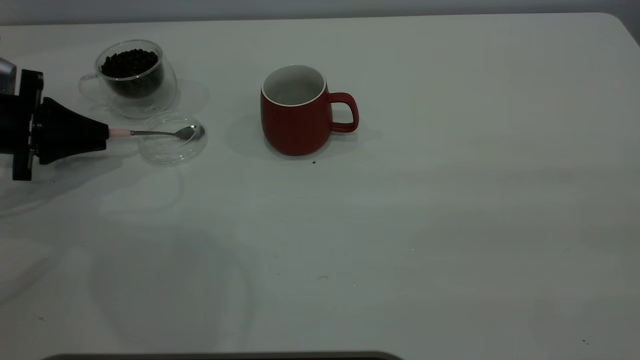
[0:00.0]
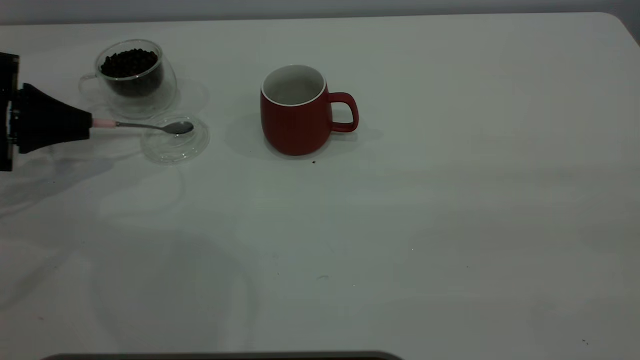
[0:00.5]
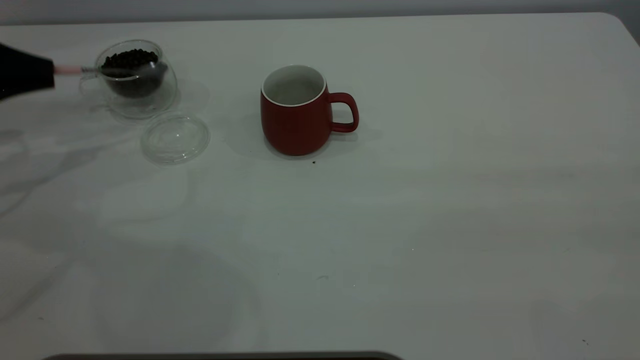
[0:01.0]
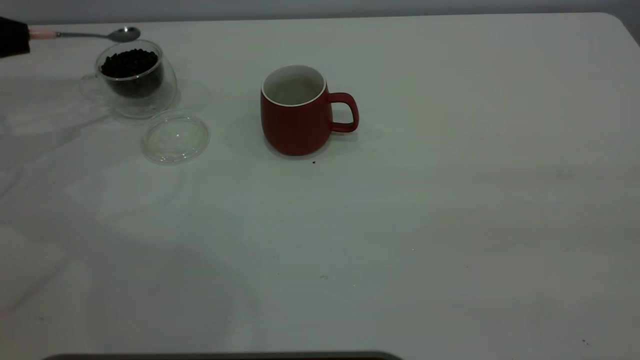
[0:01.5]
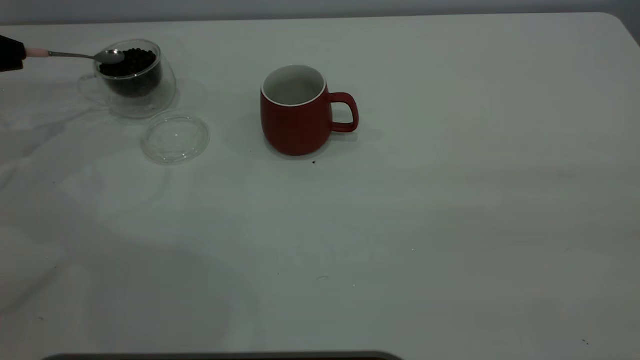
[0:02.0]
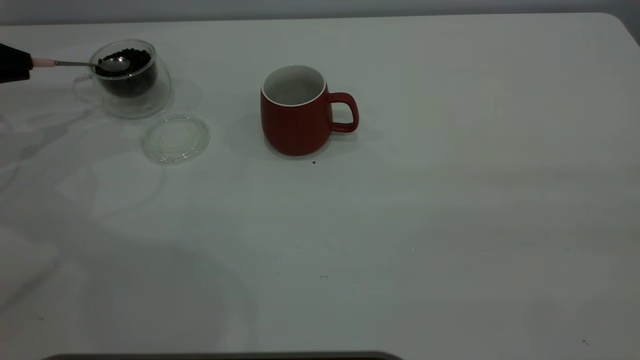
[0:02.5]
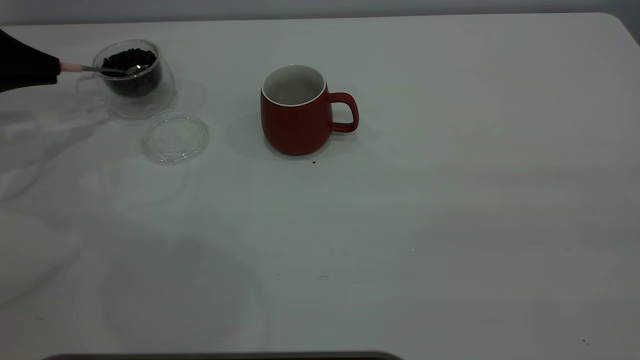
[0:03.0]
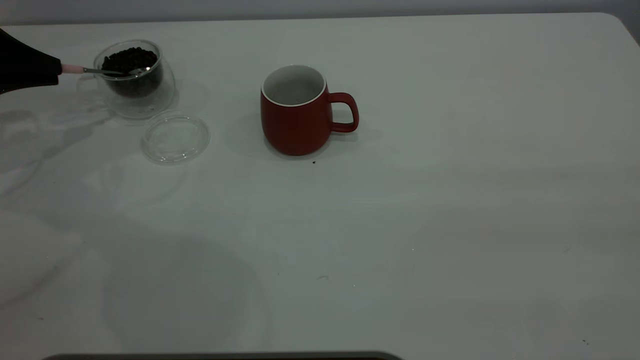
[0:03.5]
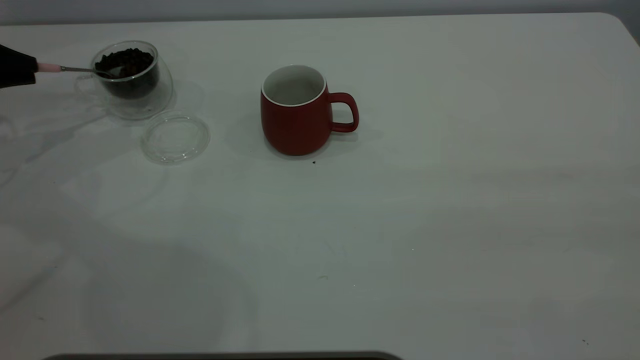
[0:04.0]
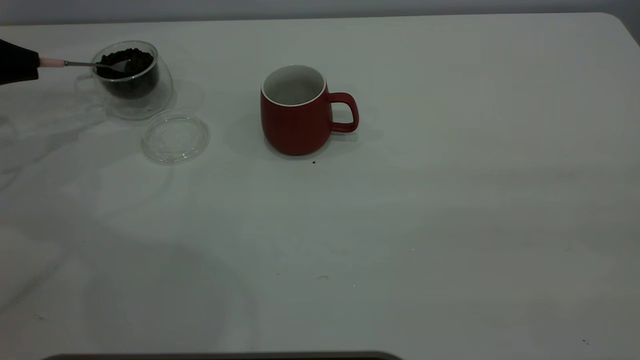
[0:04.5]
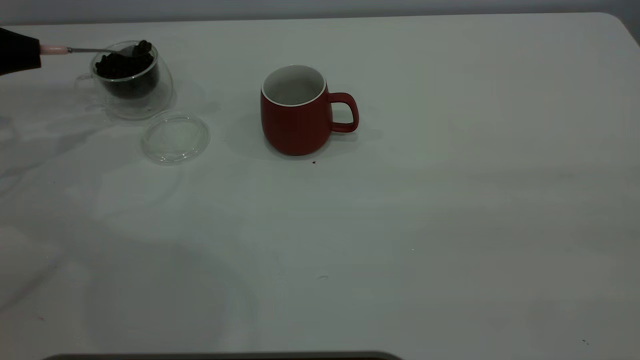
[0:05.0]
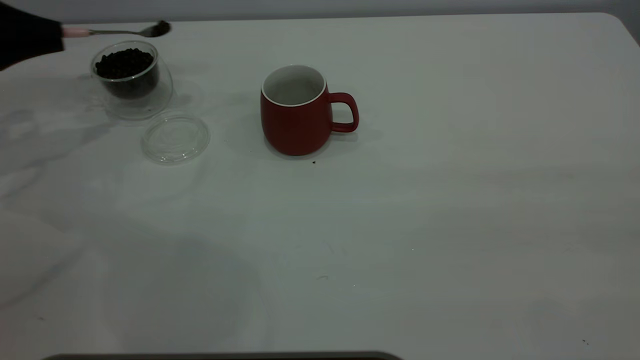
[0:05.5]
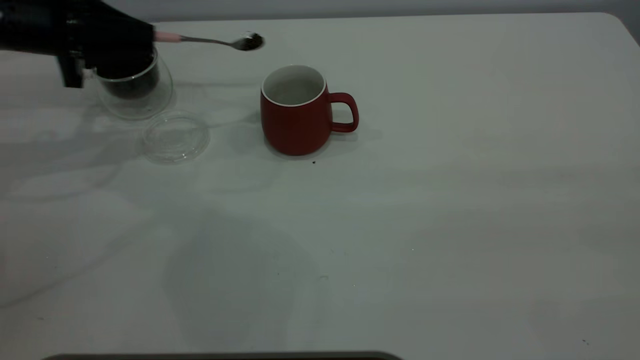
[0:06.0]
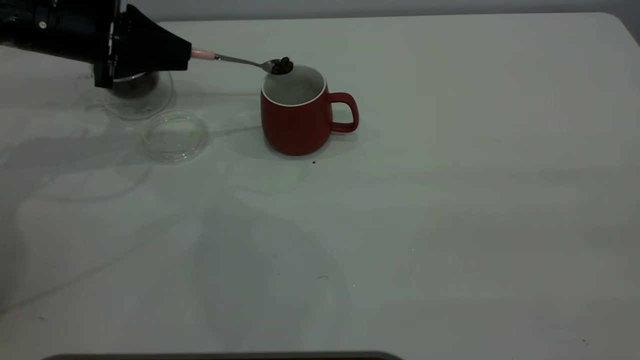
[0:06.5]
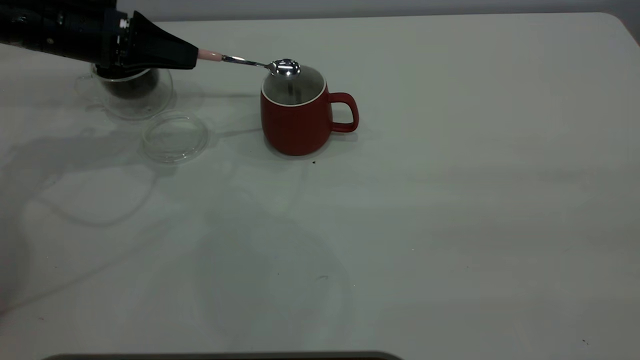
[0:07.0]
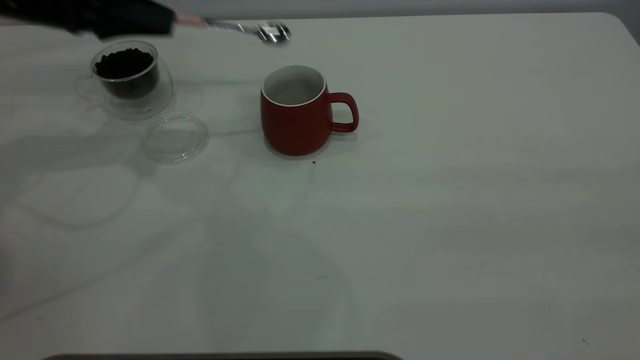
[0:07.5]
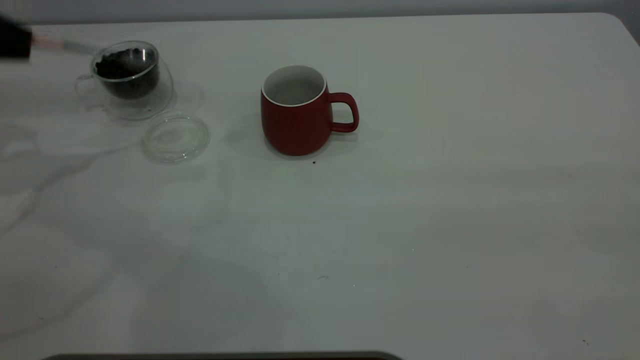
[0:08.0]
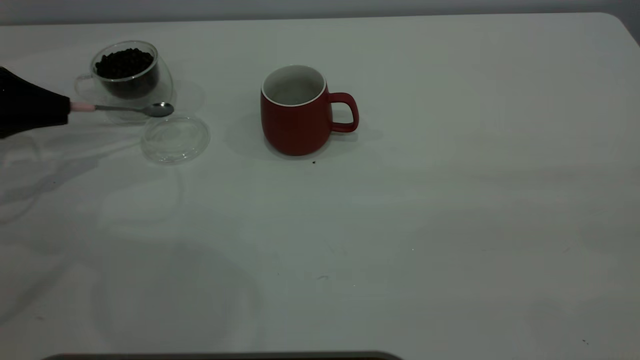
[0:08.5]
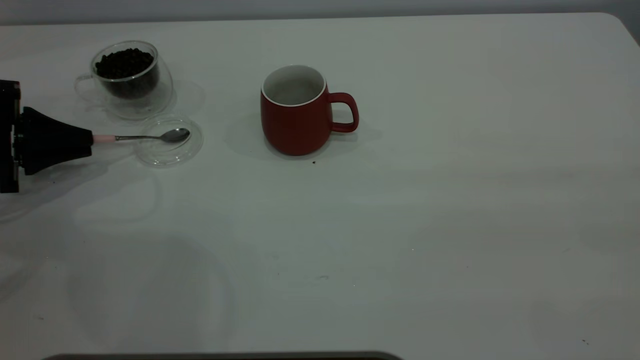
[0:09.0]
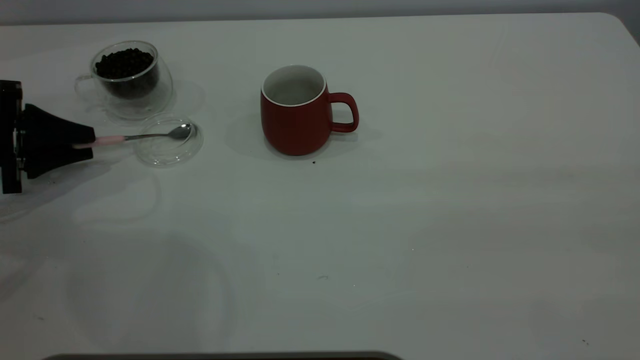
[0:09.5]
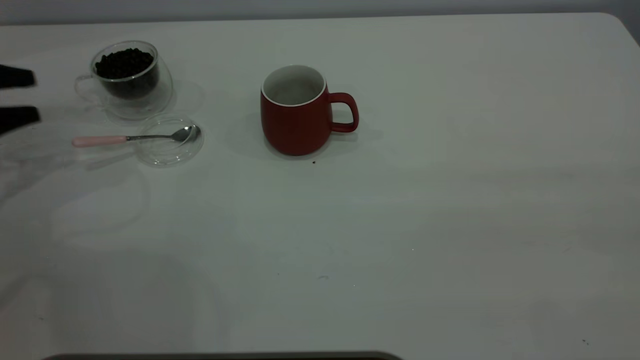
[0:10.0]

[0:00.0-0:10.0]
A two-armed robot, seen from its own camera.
Task of the whole recording: the right gripper place the red cup in the center of the table, the left gripper take the pink spoon from the cup lid and scoop out the coffee beans from the coffee cup and put them into the red cup, the left gripper put the spoon back into the cup lid.
Step, 0:01.0 to 0:07.0: Scoop a spoonful of beans into the cup.
0:00.0 to 0:02.0: The left gripper moves upward and to the left, about 10 cm.
0:02.0 to 0:04.0: The grippers move only a little.
0:04.0 to 0:06.0: The left gripper goes about 15 cm to the right.
0:06.0 to 0:08.0: The left gripper shifts roughly 10 cm to the left and backward.
0:08.0 to 0:10.0: The left gripper is displaced downward by some 5 cm, and opens.

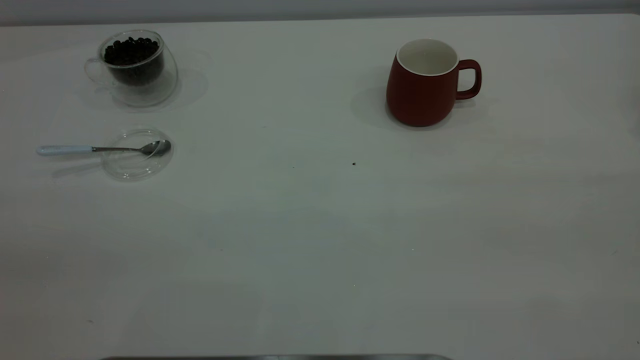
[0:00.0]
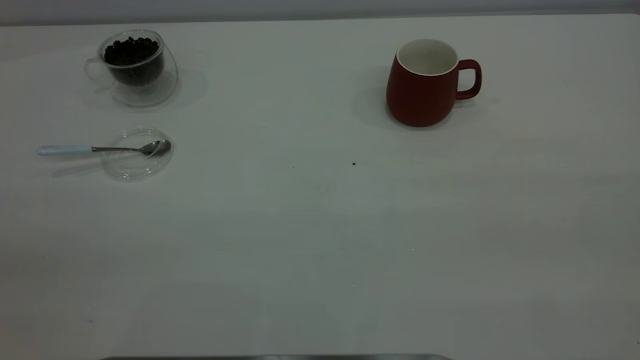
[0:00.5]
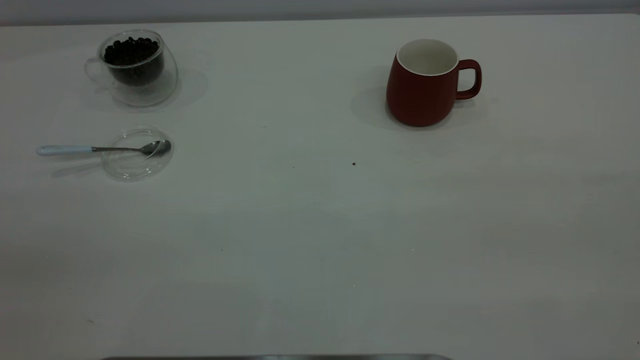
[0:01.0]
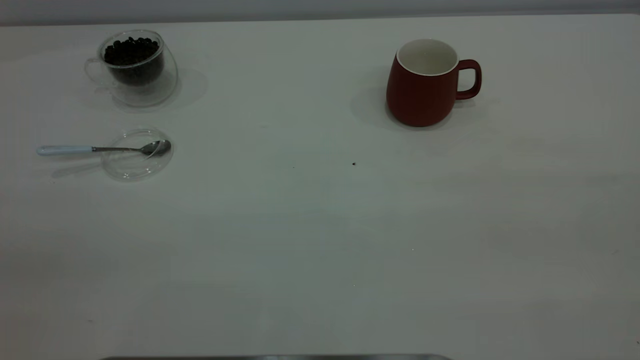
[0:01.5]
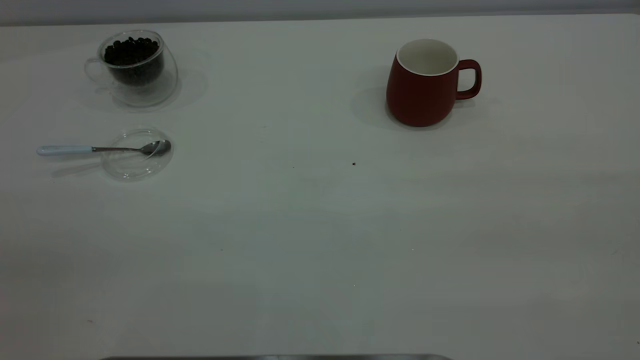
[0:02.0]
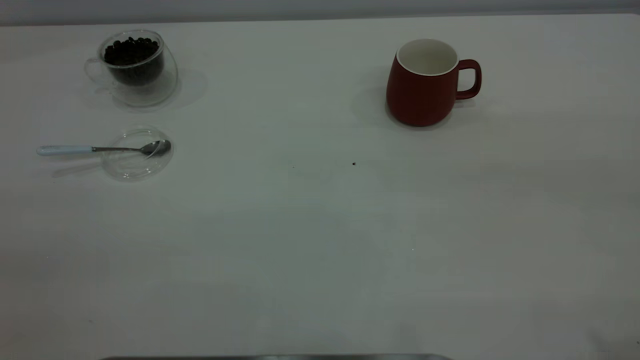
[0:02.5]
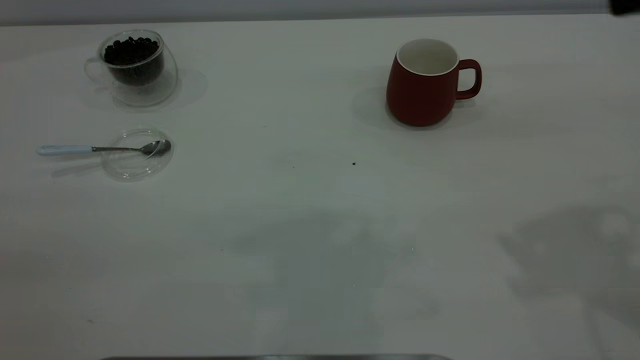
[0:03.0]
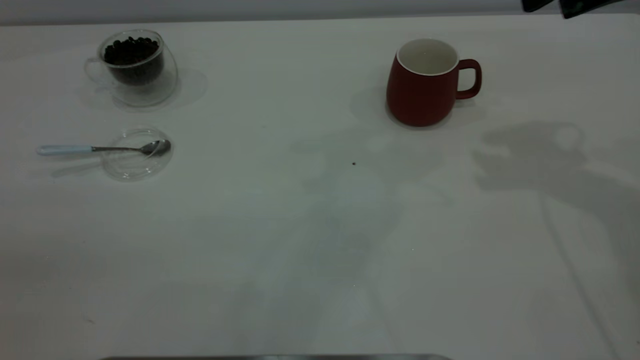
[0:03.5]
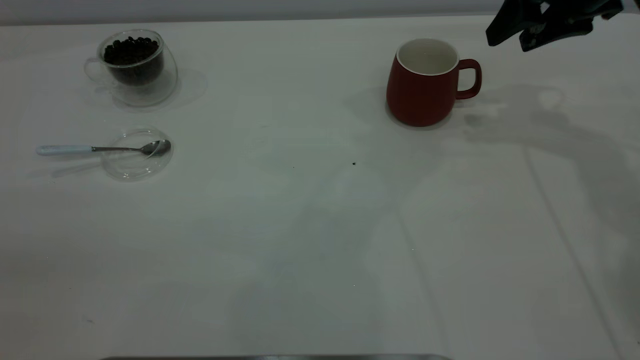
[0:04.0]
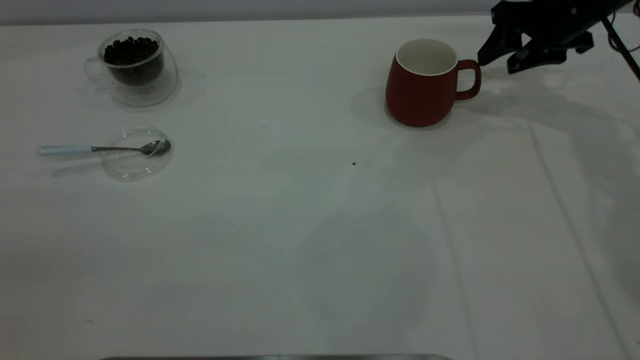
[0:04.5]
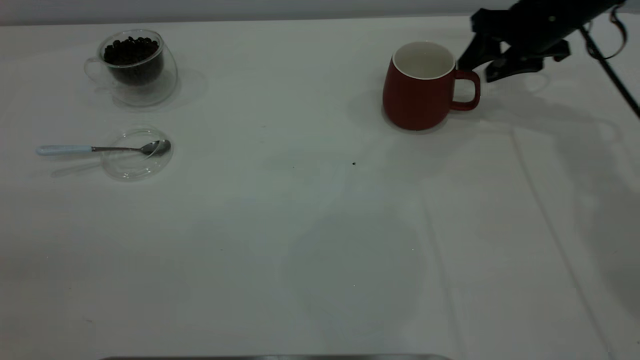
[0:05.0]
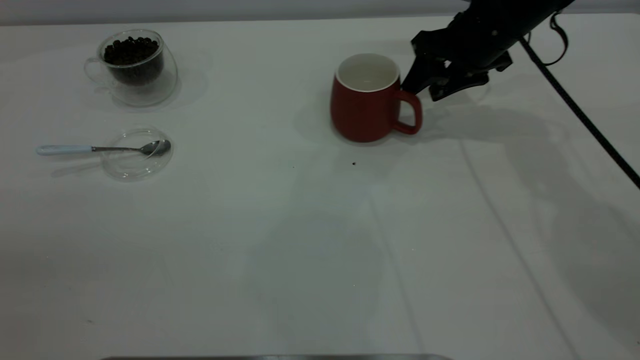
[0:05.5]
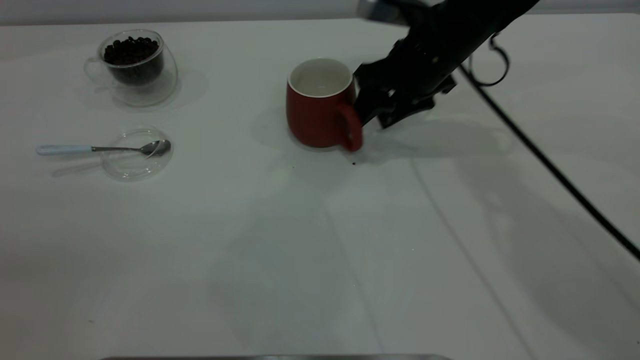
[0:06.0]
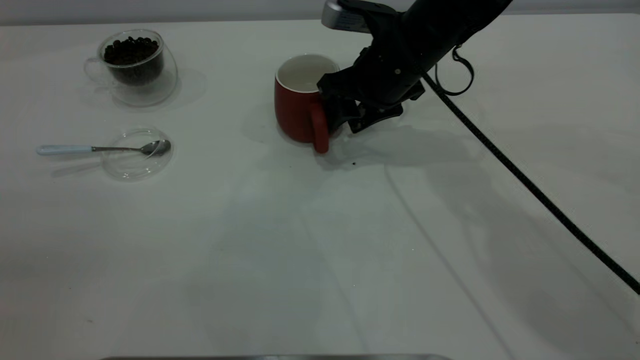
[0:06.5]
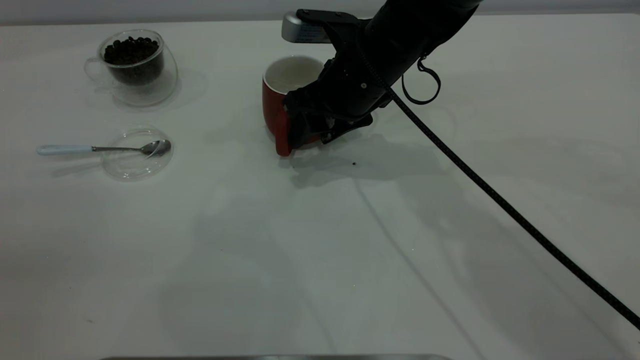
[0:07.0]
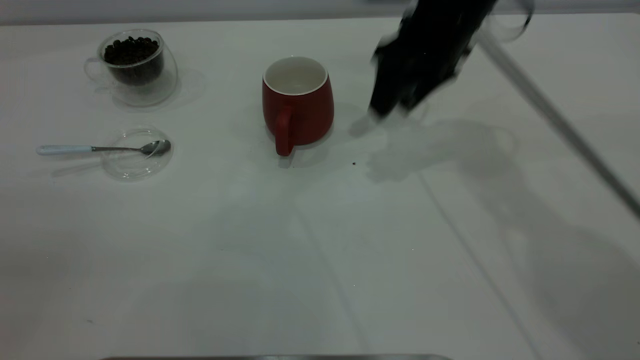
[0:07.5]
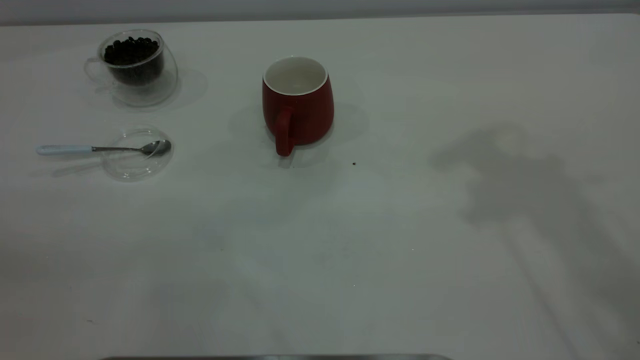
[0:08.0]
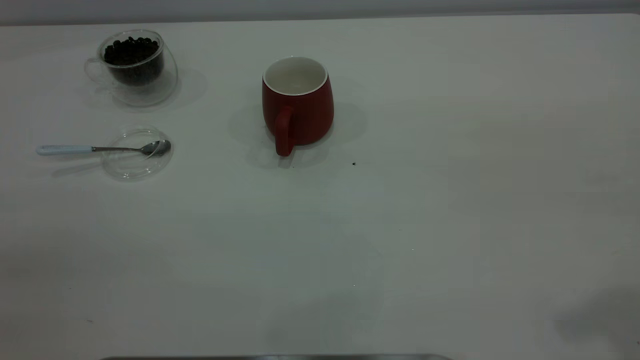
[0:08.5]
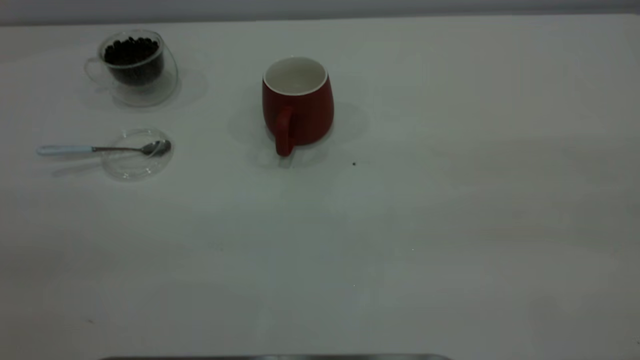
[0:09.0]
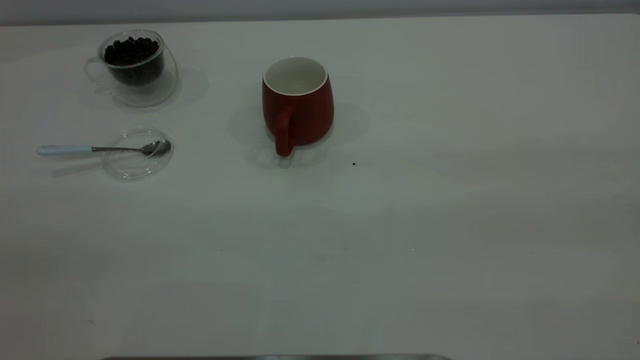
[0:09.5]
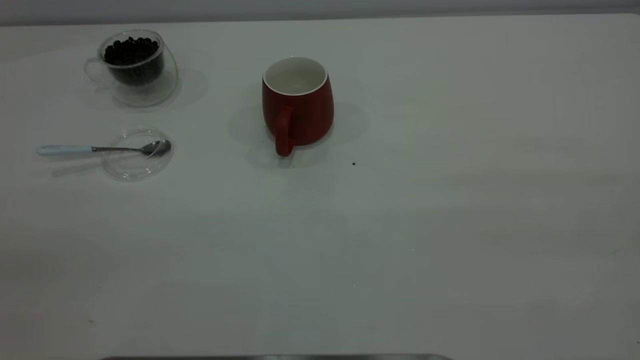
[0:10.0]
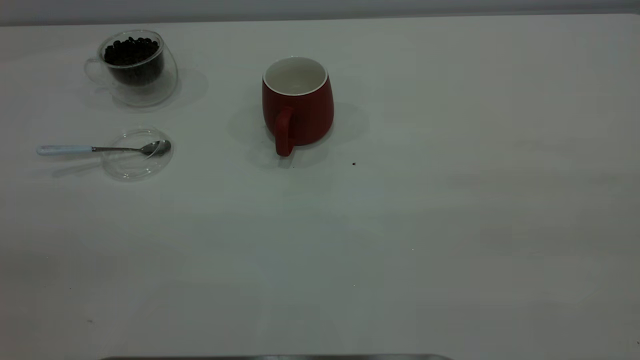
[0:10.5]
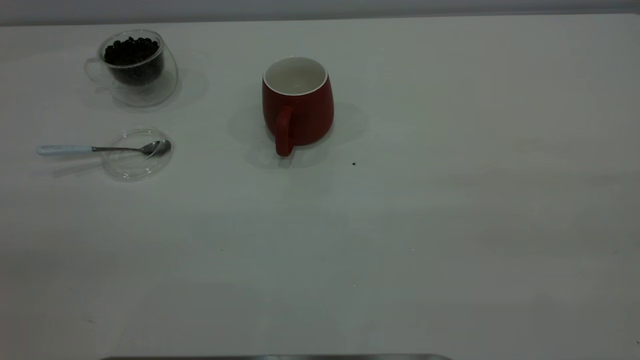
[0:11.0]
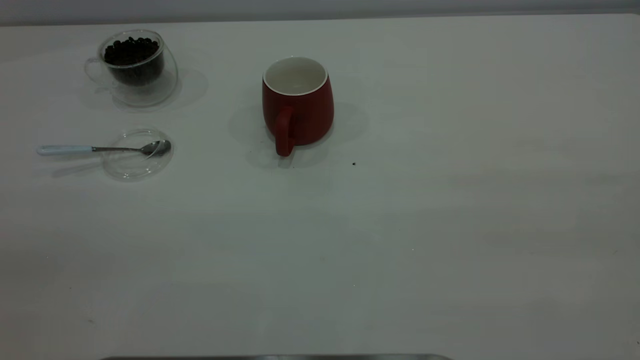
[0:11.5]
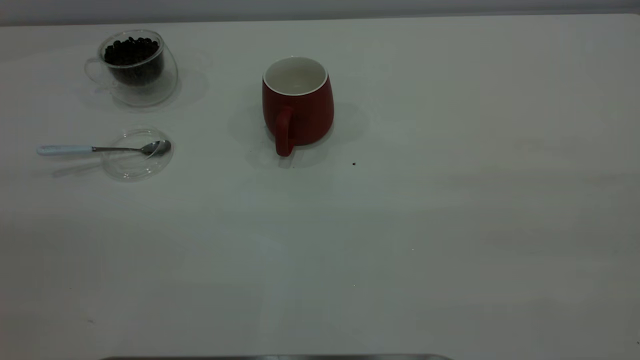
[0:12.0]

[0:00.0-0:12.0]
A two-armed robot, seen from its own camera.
Task of the whole recording: the right gripper place the red cup in the center of the table, the left gripper take the blue spoon from the cup lid and scoop out the coffee beans from the coffee cup and put them into the red cup, the left gripper put the spoon back into the cup lid.
Step, 0:00.0 to 0:07.0: Move the cup to the center of view.
0:02.0 to 0:04.0: The right gripper heads forward, covering some 40 cm.
0:04.0 to 0:06.0: The right gripper goes approximately 20 cm to the left and downward.
0:06.0 to 0:08.0: The right gripper heads upward, covering about 30 cm.
